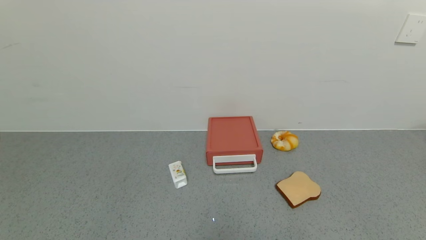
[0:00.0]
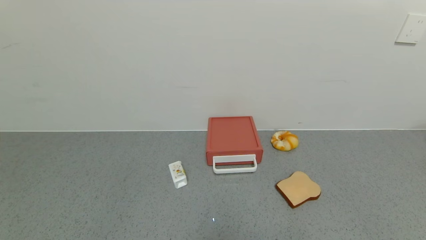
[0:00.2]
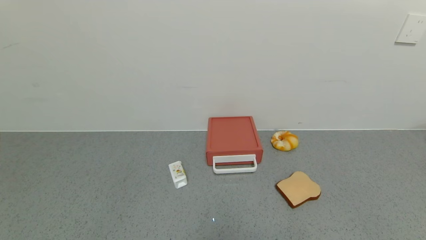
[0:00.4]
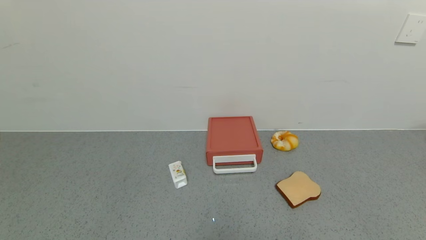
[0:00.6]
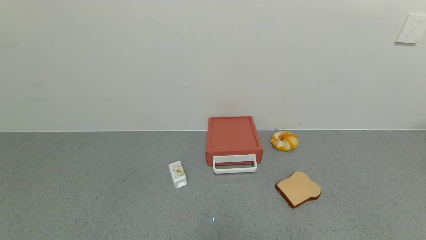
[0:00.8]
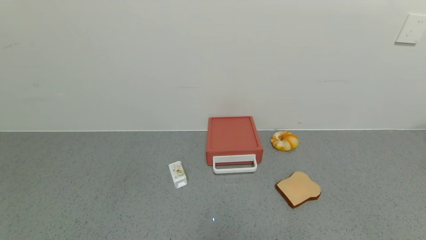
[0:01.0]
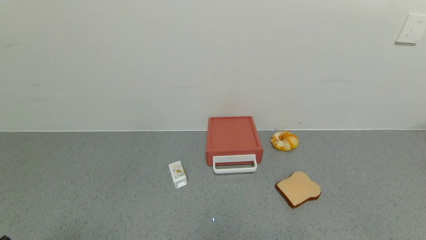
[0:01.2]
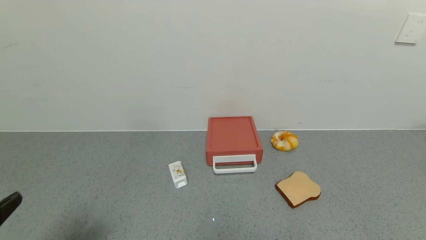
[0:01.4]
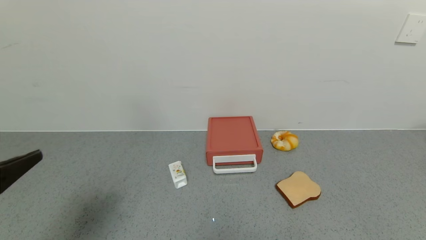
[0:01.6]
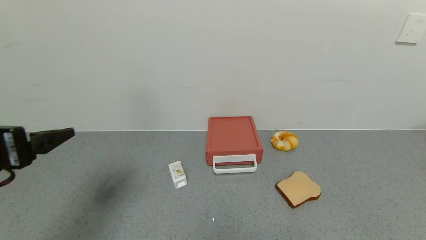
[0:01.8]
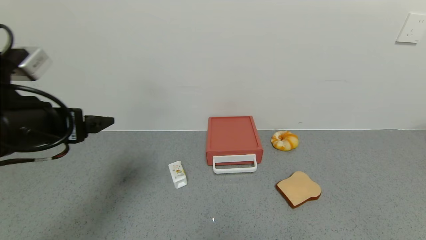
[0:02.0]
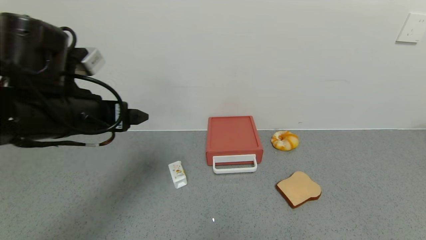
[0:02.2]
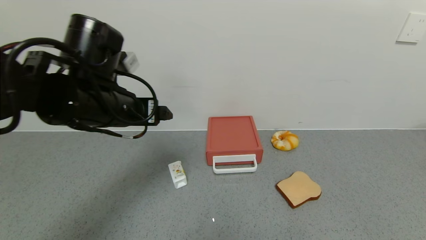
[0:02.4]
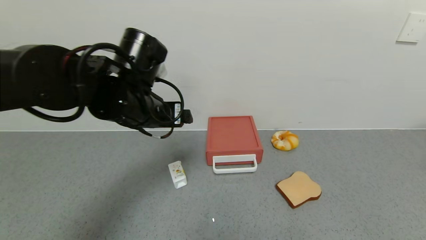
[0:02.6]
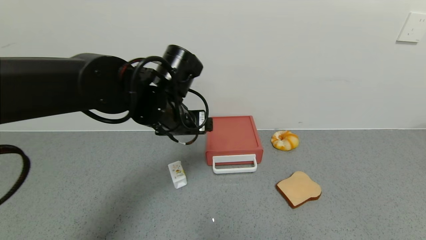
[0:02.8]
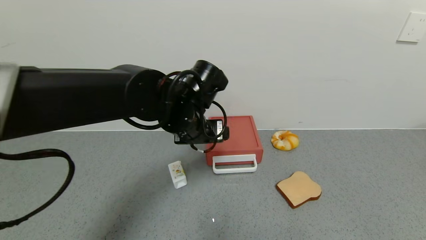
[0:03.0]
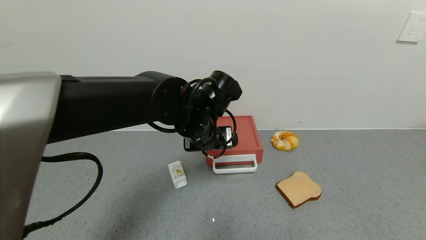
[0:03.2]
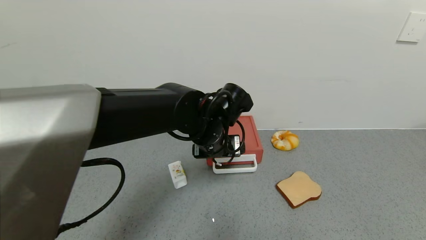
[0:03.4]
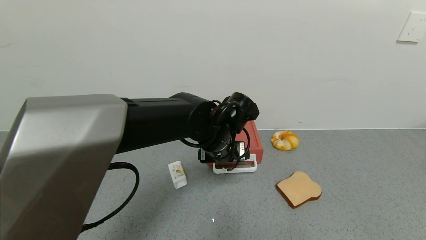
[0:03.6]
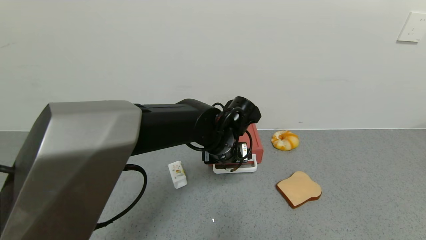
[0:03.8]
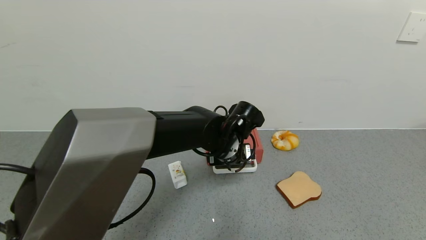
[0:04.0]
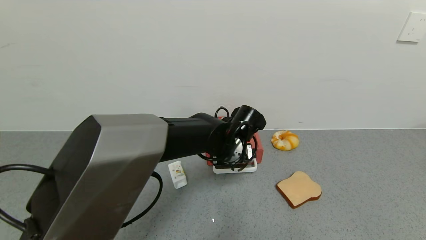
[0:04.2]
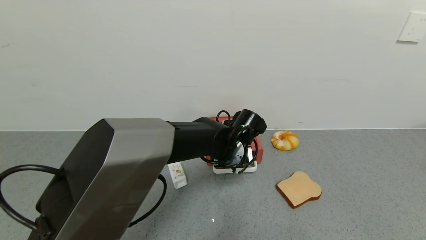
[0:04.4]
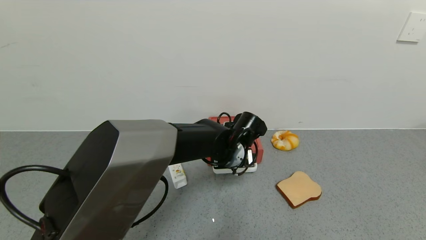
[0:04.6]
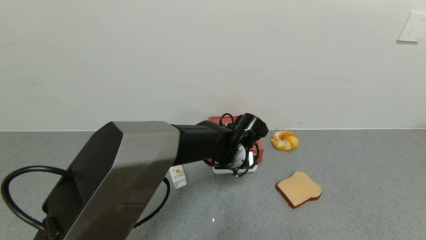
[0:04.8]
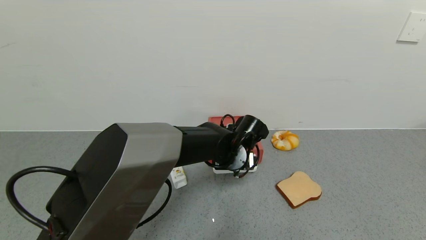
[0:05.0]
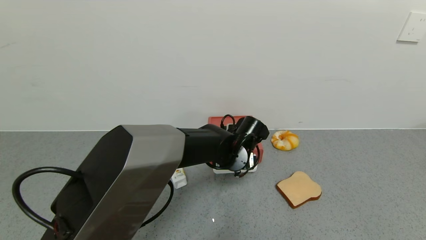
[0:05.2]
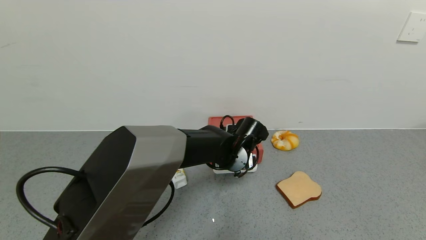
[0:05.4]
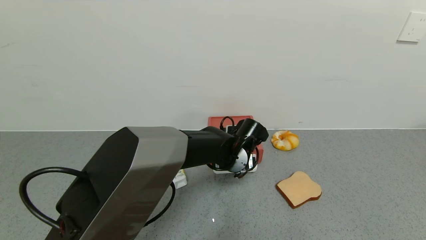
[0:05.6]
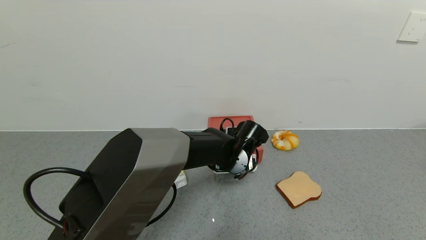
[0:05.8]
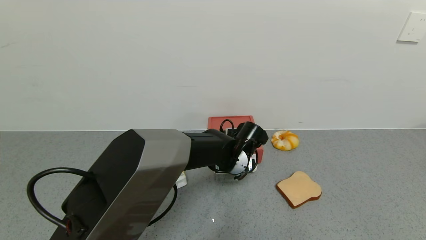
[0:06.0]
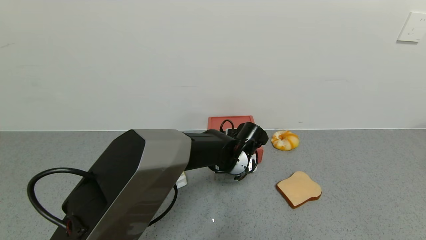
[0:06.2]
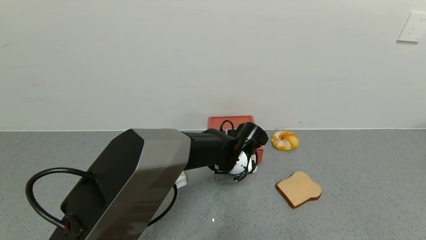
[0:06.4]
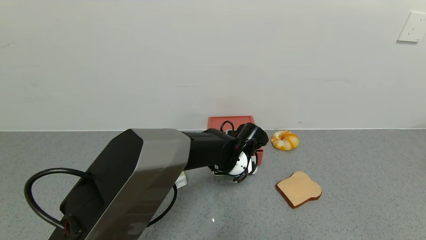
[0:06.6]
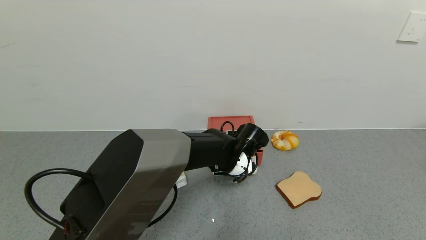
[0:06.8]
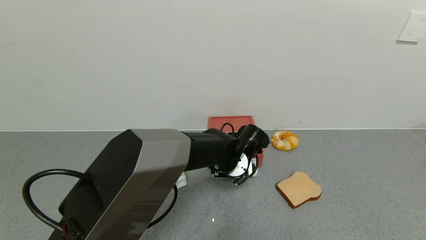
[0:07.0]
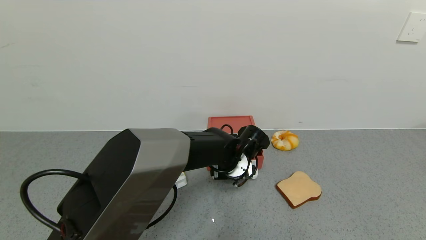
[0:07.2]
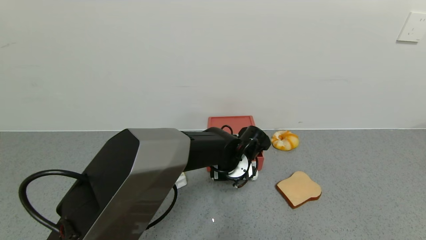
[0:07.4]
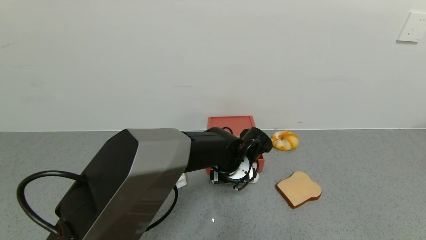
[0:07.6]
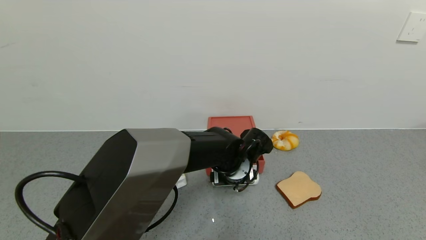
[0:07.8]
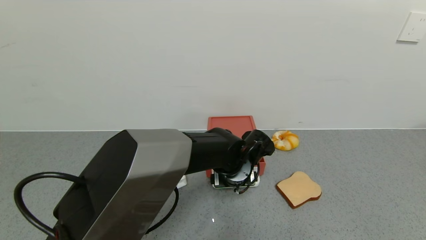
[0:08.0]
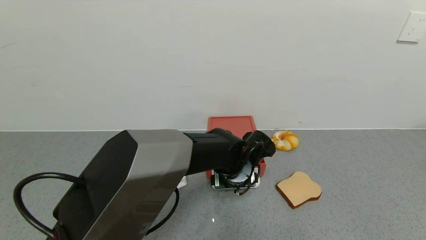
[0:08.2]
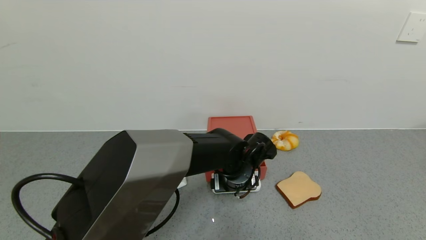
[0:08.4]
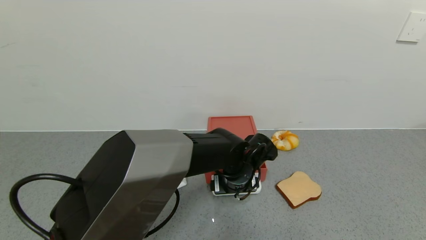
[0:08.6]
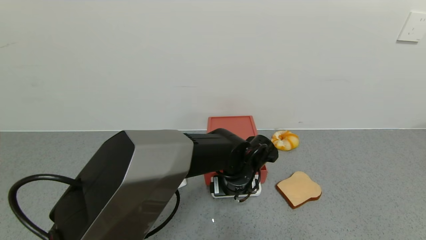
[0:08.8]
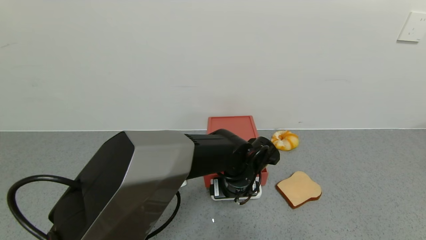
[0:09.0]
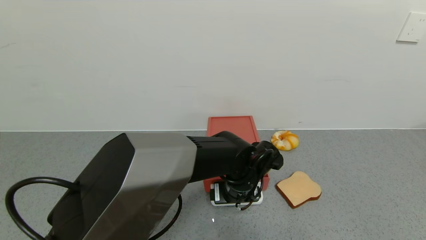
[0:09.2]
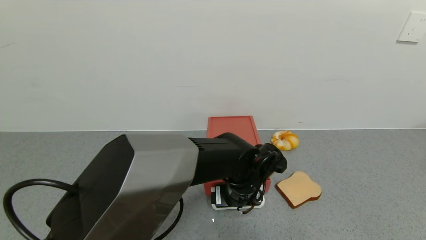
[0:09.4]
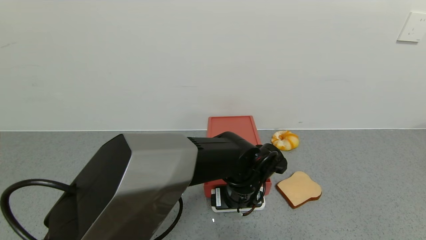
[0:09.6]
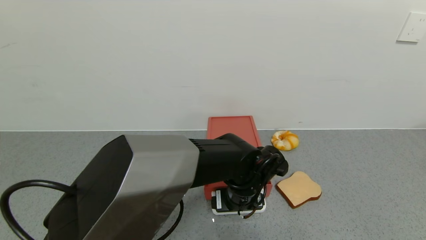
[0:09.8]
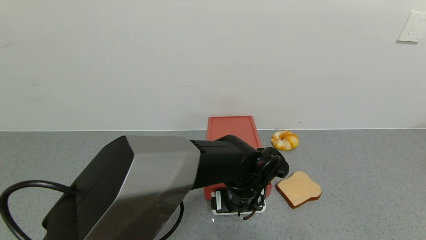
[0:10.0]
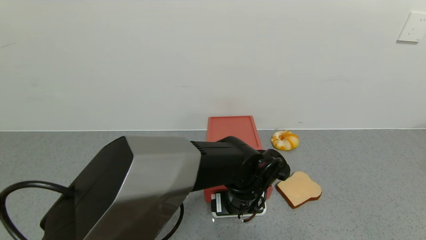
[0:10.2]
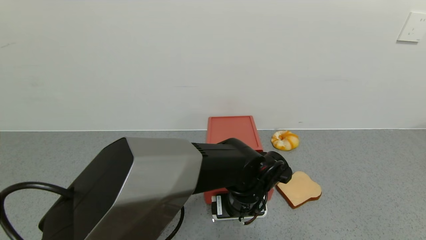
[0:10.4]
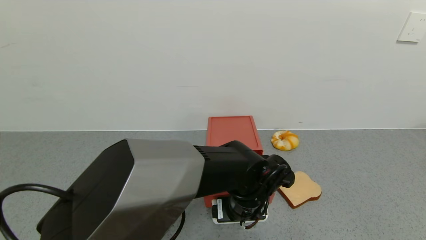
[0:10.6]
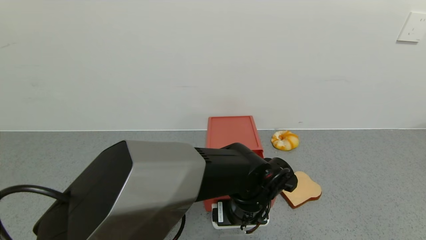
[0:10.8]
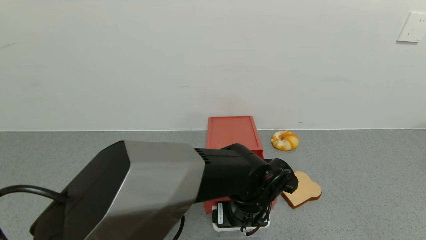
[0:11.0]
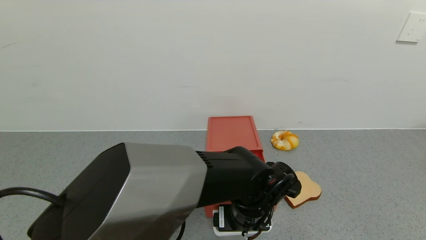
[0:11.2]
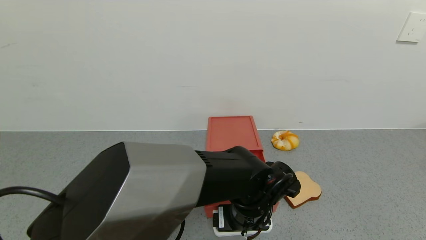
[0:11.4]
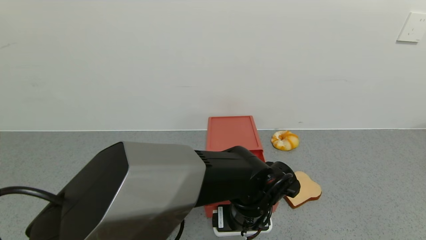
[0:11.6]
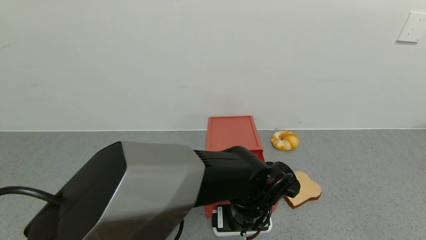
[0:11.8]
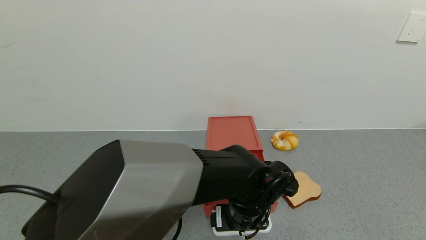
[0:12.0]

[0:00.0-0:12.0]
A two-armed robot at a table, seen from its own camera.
Task of the whole recording: use the gripper to open the drawer and close the red drawer.
0.0 to 1.6 s: The left gripper goes approximately 25 cm upward and forward.
1.6 to 3.0 s: The left gripper moves to the right and forward, approximately 30 cm.
3.0 to 4.4 s: The left gripper travels downward and to the right by about 10 cm.
4.4 to 7.6 s: The grippers stay close to where they were, moving slightly.
7.6 to 9.0 s: The grippers make only small movements.
9.0 to 12.0 s: The grippers move only a little.

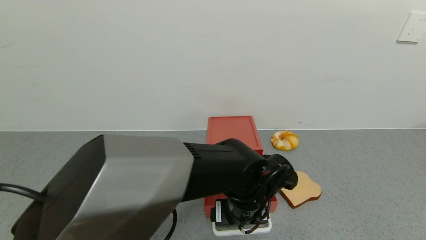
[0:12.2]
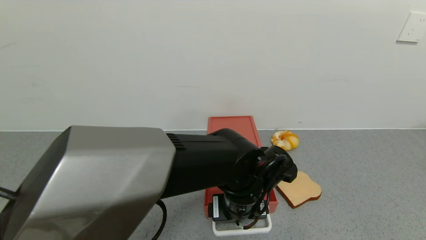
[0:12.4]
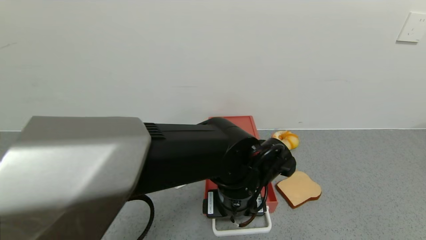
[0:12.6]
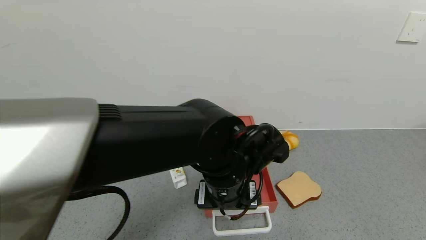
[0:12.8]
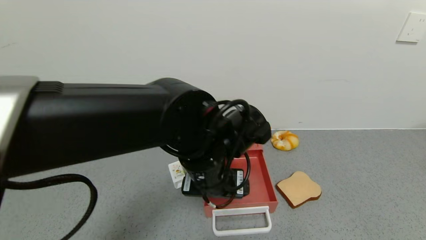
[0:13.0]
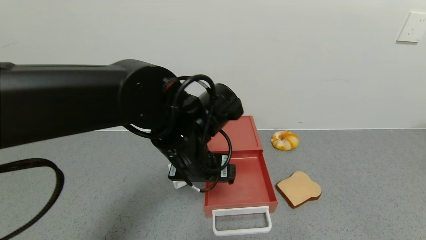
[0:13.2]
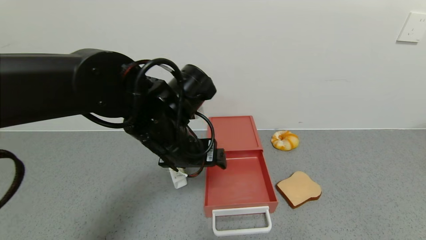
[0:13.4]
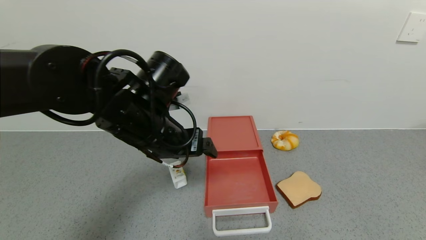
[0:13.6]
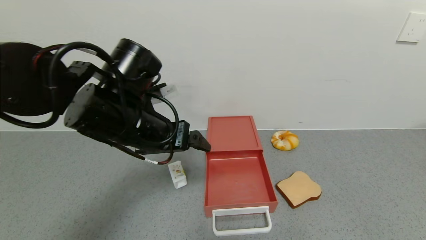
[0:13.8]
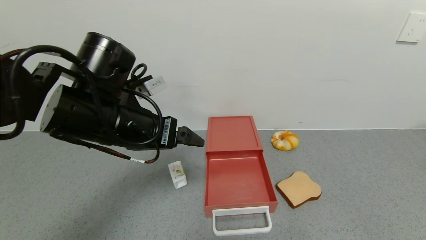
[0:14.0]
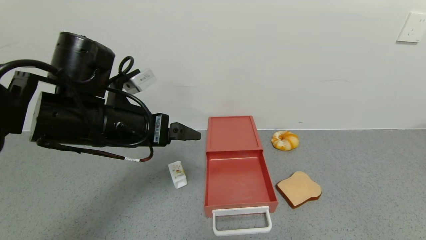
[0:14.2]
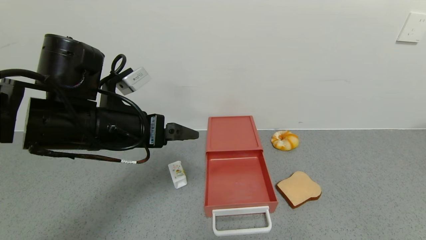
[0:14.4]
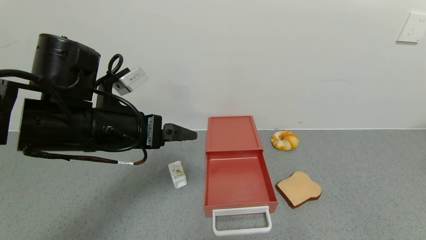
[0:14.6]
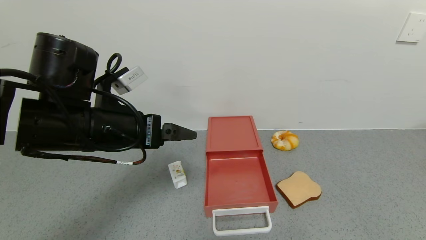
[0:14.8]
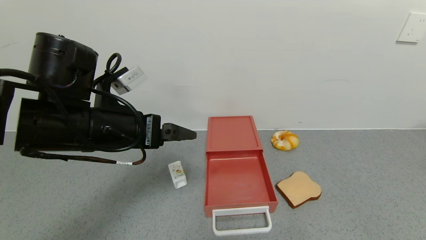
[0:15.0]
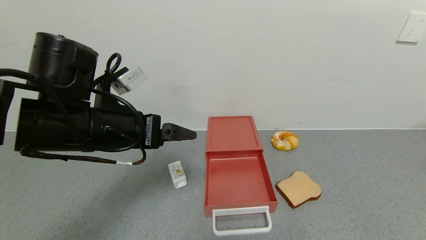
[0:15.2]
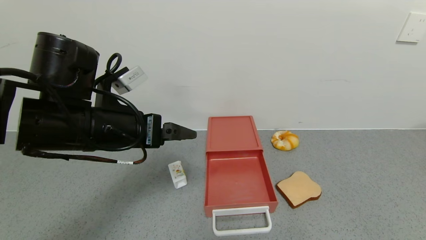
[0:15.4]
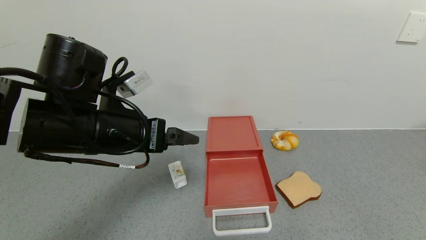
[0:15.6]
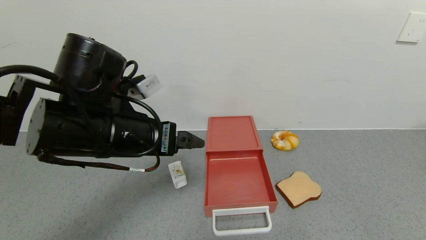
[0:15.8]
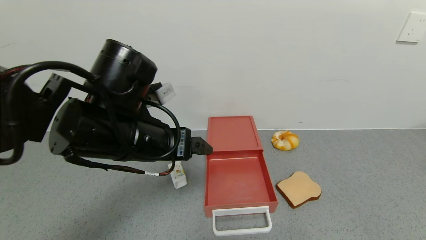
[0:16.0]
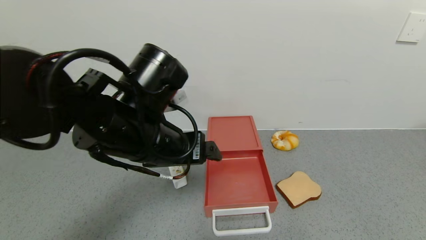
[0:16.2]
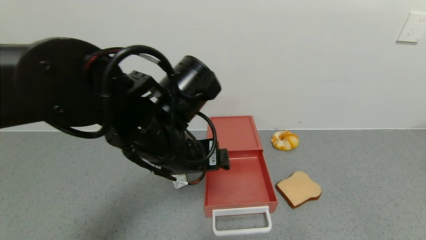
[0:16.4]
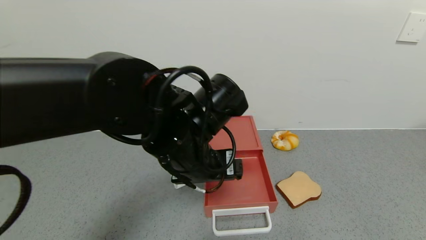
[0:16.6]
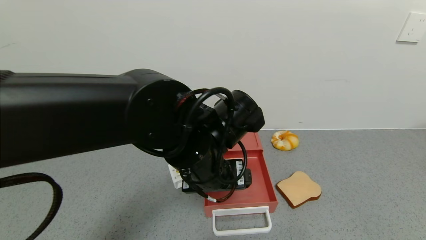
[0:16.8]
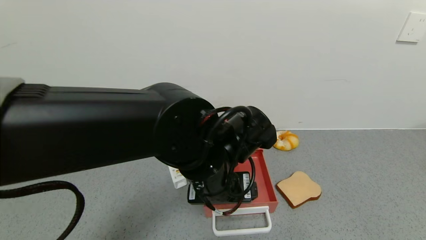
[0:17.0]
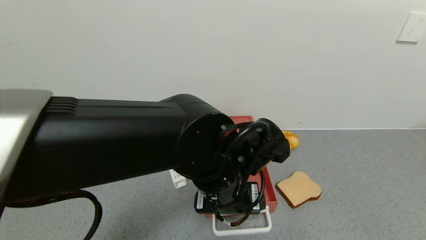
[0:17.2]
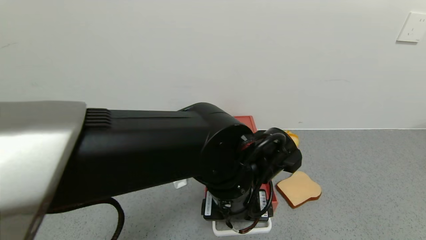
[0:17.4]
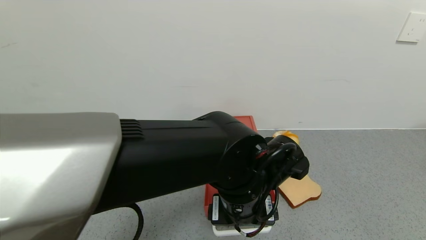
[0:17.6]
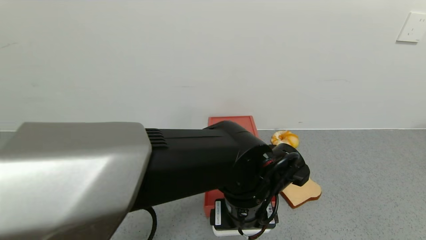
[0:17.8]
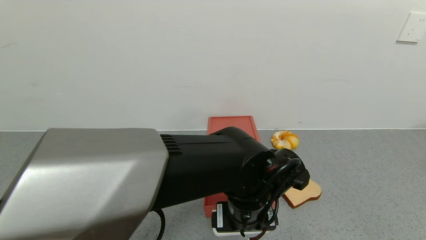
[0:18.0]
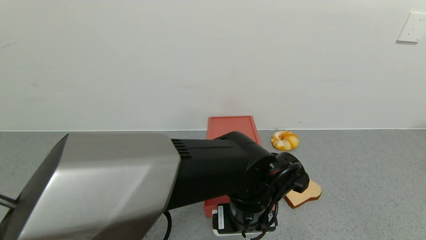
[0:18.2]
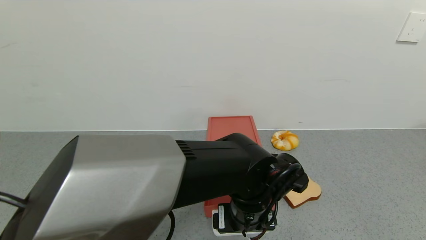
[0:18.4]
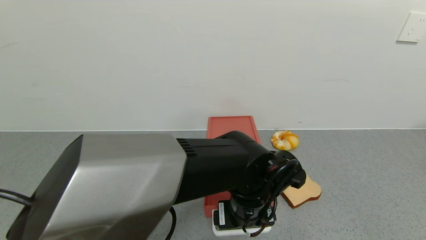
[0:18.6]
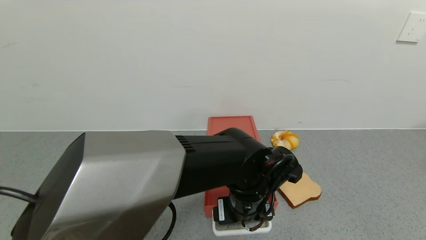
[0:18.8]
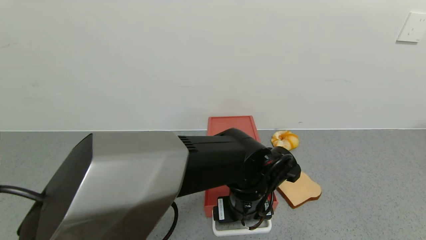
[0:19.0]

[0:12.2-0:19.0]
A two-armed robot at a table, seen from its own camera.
Task of the whole recording: use the gripper to open the drawer and close the red drawer.
12.2 to 13.6 s: The left gripper travels to the left and upward by about 20 cm.
13.6 to 15.0 s: The left gripper travels to the left by about 5 cm.
15.0 to 16.2 s: The left gripper goes some 10 cm to the right.
16.2 to 17.6 s: The left gripper shifts approximately 15 cm to the right and downward.
17.6 to 19.0 s: The left gripper changes place by roughly 5 cm.
